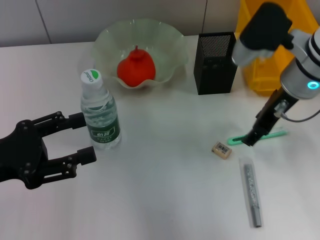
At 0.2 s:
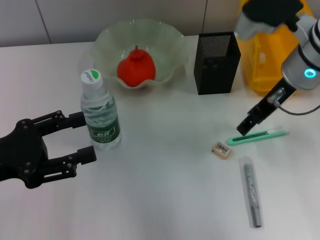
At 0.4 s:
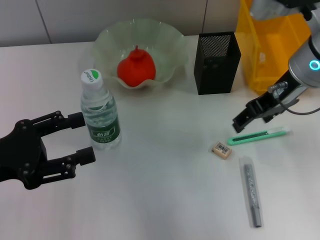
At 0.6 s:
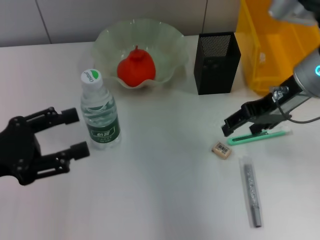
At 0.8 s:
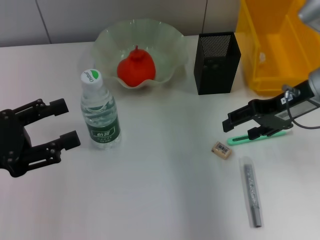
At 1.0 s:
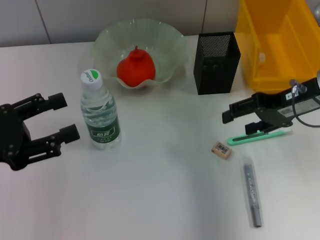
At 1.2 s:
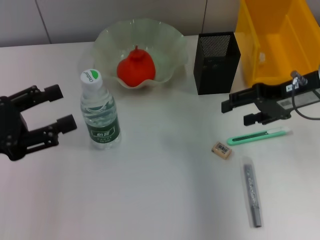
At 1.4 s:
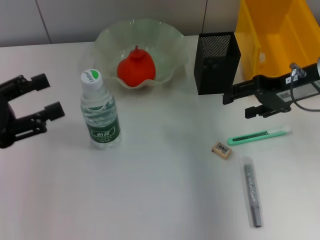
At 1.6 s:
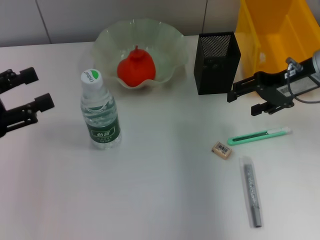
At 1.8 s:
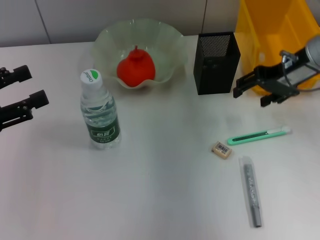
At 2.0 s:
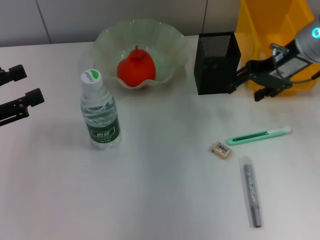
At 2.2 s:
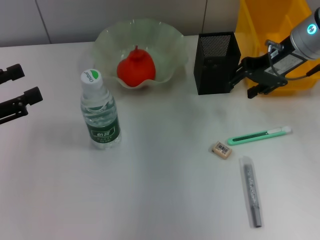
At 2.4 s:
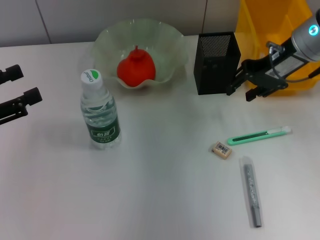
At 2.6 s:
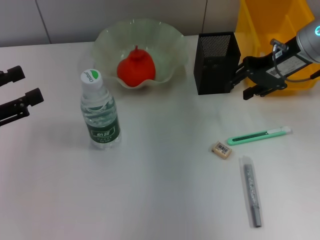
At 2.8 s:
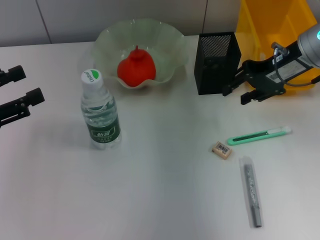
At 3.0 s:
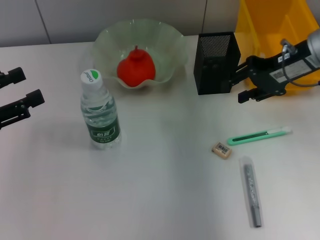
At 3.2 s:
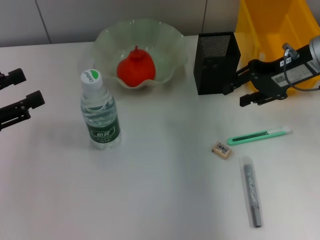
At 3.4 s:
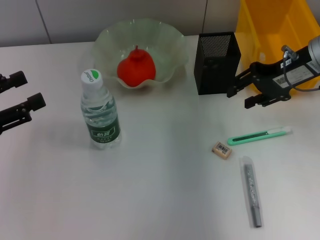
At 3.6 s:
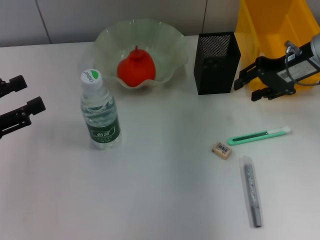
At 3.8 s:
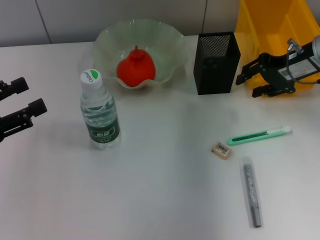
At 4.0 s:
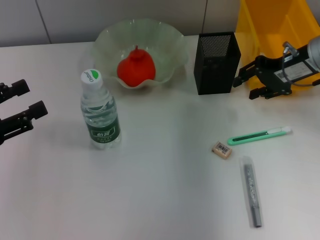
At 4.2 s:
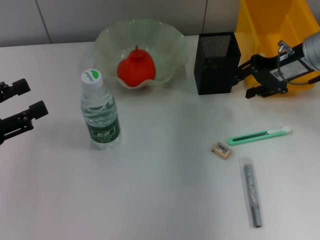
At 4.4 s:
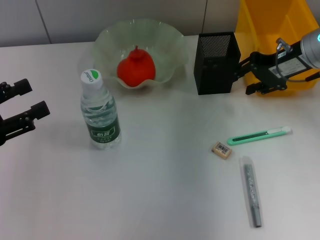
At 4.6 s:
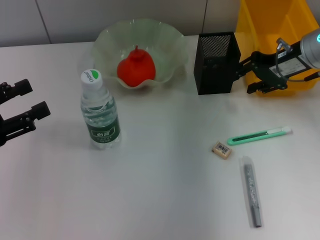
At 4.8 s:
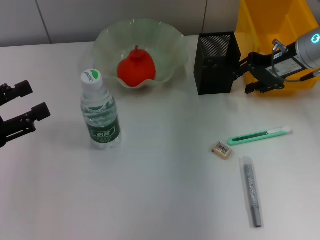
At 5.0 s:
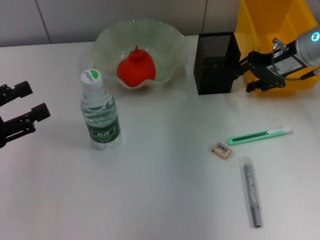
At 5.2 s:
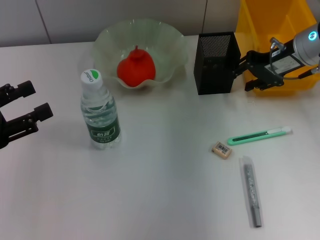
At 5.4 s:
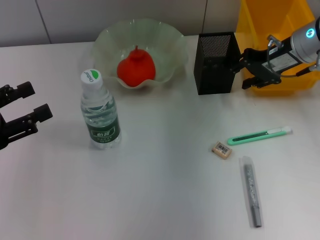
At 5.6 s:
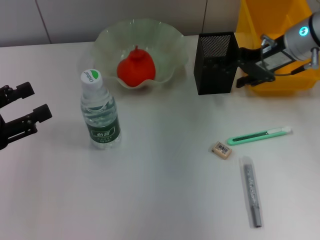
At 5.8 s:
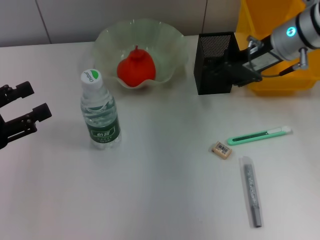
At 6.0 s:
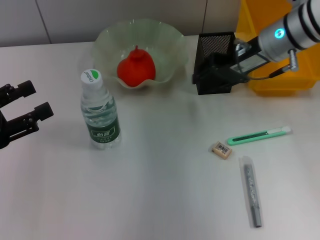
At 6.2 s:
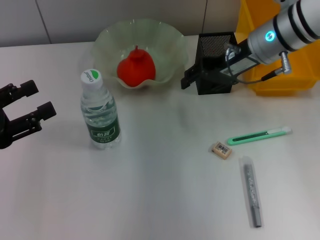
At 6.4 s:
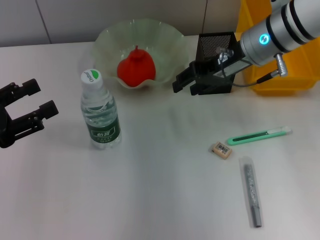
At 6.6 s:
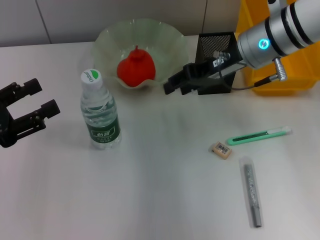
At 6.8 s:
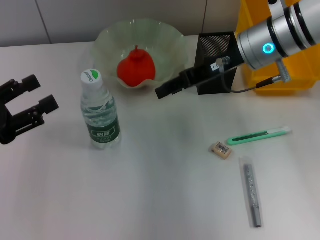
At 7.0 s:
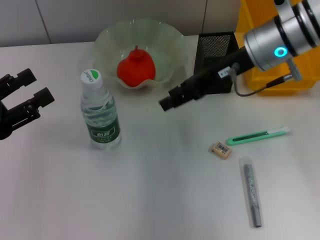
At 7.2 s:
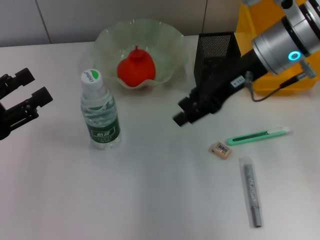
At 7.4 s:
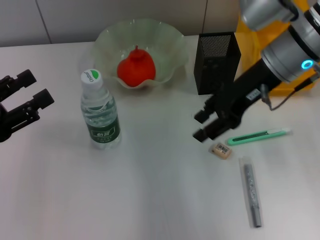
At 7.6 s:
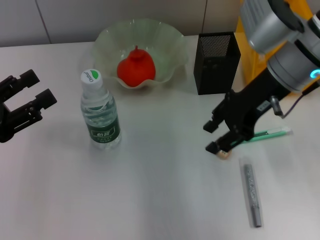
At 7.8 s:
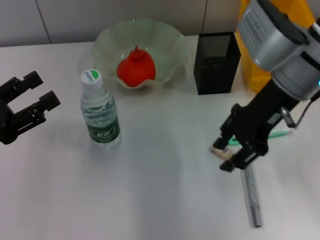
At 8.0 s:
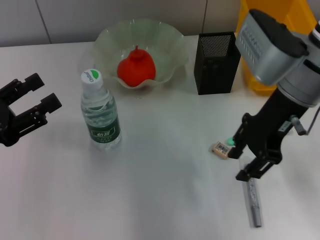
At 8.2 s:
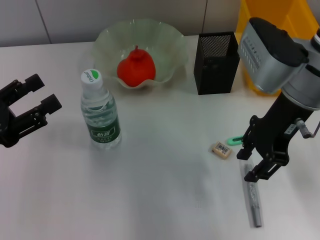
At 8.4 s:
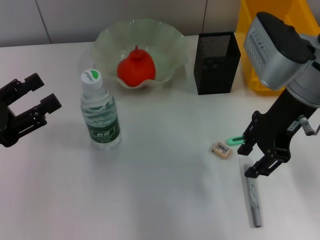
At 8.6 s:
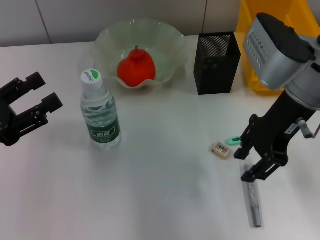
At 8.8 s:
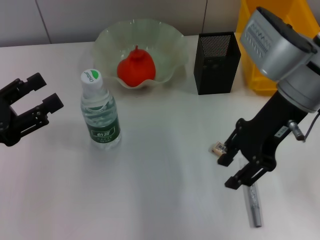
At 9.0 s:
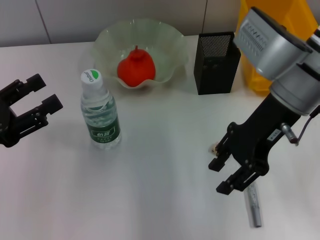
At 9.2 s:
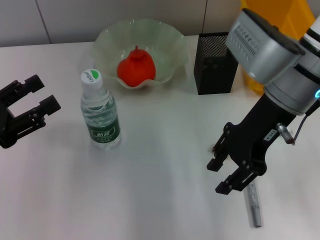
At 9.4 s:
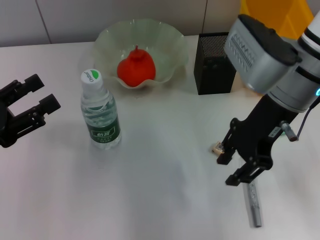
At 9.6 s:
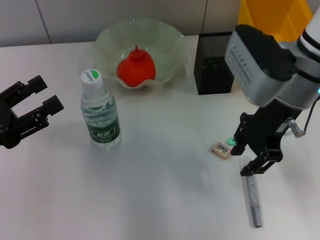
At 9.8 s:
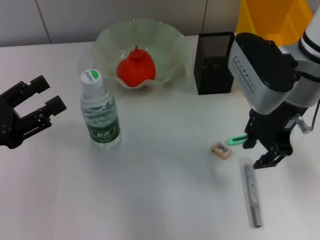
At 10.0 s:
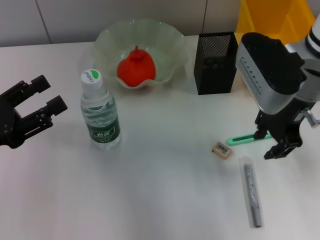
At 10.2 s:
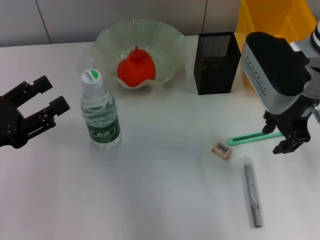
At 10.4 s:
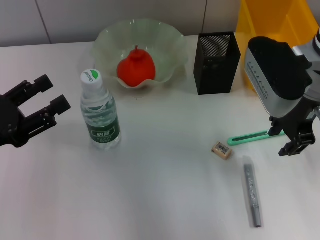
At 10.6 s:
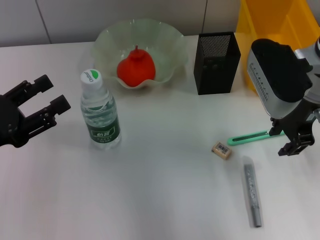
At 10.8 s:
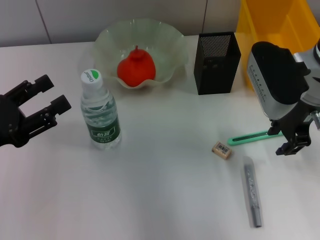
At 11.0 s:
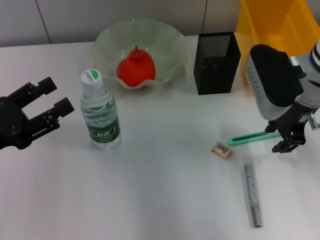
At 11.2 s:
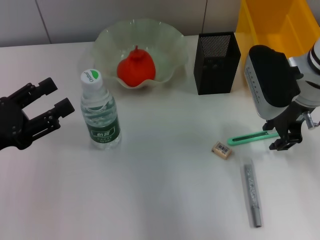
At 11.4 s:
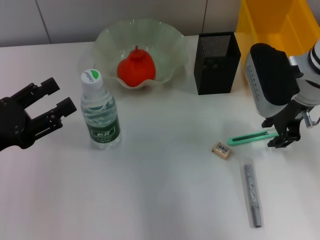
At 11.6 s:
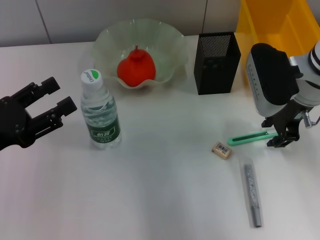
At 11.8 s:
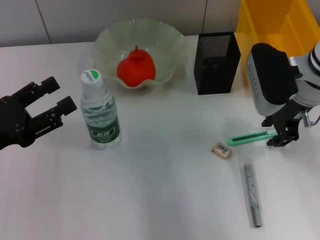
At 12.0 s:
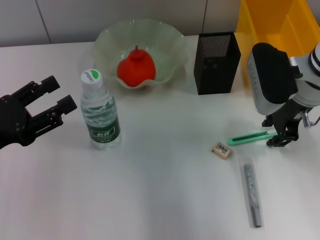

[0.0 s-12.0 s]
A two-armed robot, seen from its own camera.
0.0 to 1.6 s: The right gripper shifts about 5 cm to the right.
1.6 to 3.0 s: The right gripper closes up.
3.0 to 4.4 s: The grippers make only small movements.
4.4 to 6.0 s: The right gripper shifts approximately 5 cm to the left.
6.0 to 7.6 s: The right gripper heads backward, covering some 5 cm.
7.6 to 9.0 s: The grippers stay close to where they were, moving slightly.
10.4 to 12.0 s: The right gripper changes place by some 5 cm.

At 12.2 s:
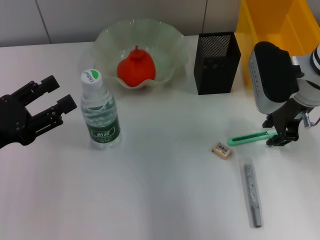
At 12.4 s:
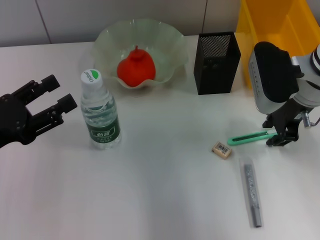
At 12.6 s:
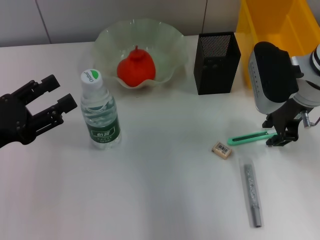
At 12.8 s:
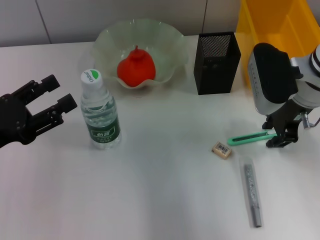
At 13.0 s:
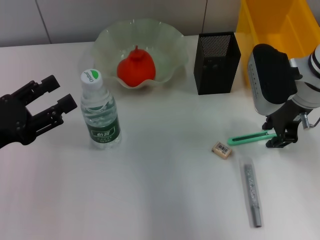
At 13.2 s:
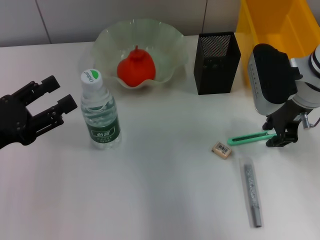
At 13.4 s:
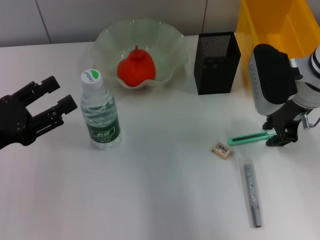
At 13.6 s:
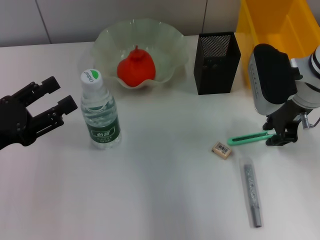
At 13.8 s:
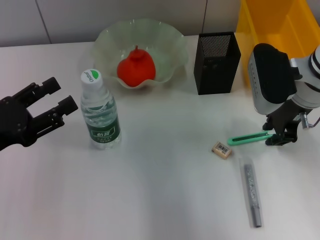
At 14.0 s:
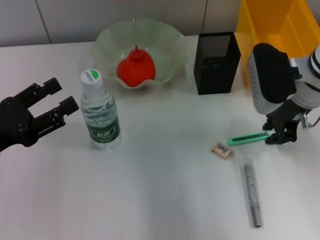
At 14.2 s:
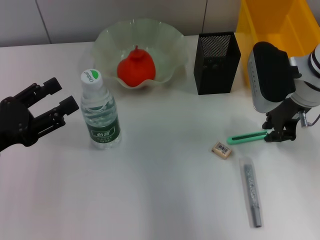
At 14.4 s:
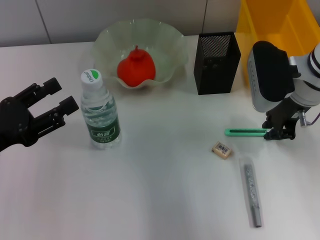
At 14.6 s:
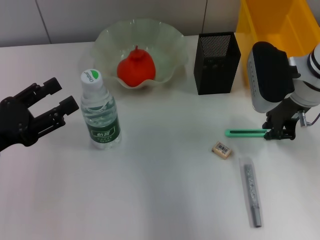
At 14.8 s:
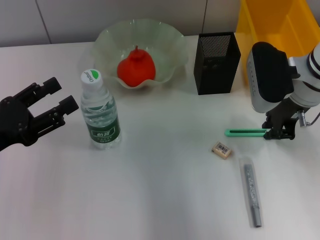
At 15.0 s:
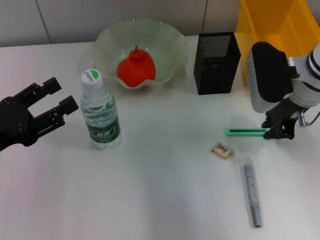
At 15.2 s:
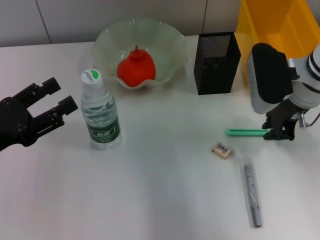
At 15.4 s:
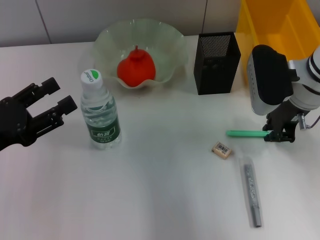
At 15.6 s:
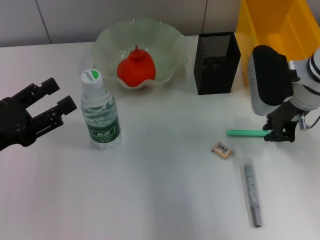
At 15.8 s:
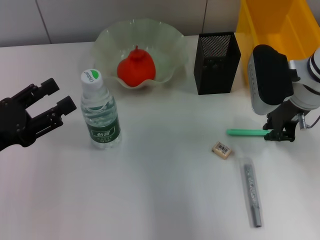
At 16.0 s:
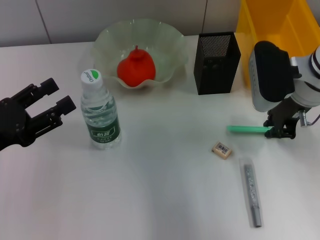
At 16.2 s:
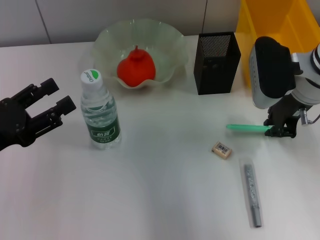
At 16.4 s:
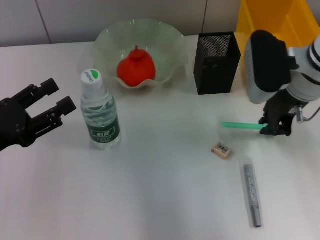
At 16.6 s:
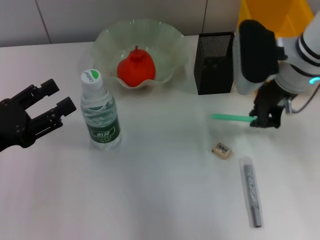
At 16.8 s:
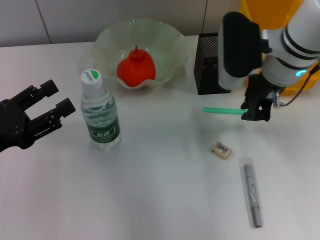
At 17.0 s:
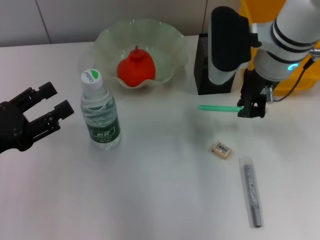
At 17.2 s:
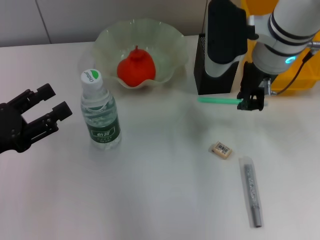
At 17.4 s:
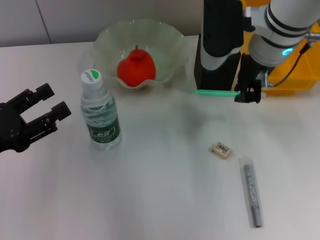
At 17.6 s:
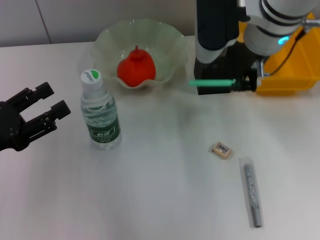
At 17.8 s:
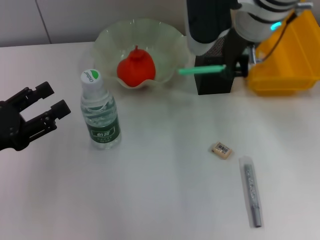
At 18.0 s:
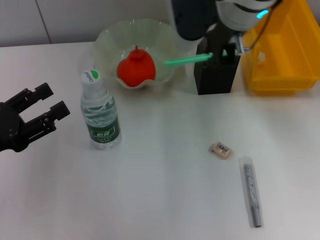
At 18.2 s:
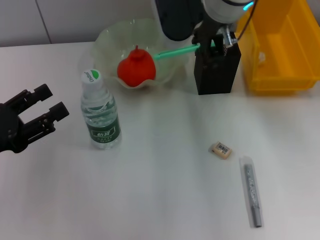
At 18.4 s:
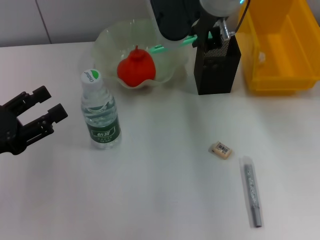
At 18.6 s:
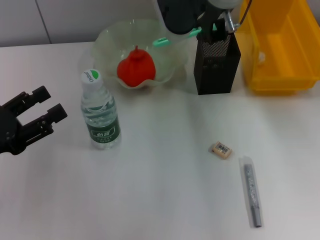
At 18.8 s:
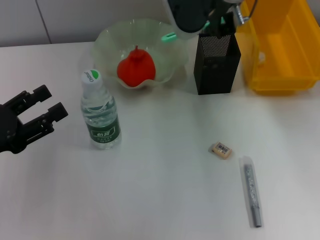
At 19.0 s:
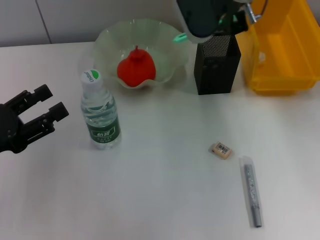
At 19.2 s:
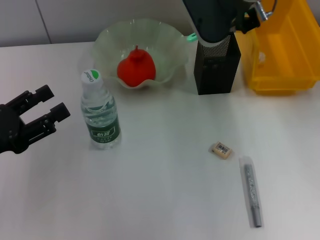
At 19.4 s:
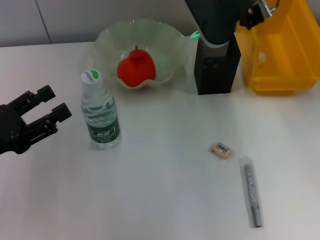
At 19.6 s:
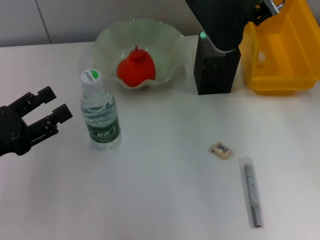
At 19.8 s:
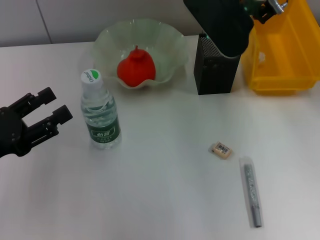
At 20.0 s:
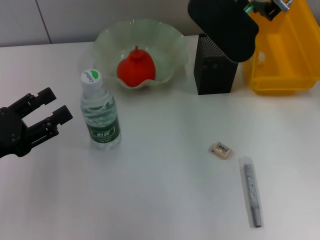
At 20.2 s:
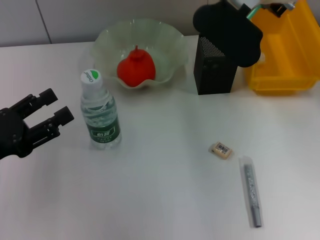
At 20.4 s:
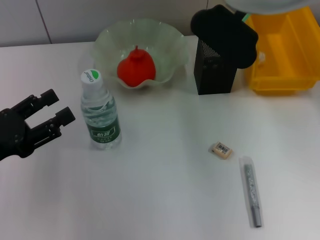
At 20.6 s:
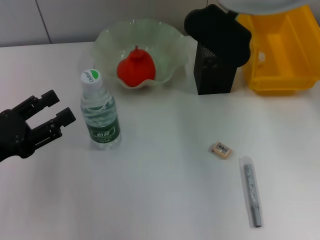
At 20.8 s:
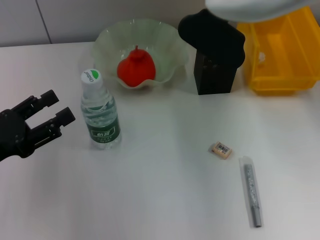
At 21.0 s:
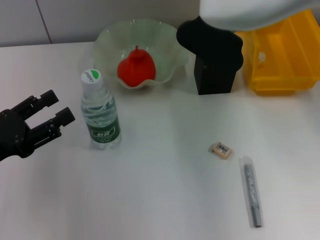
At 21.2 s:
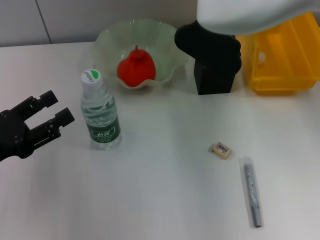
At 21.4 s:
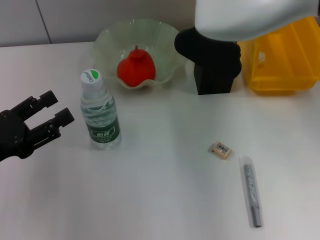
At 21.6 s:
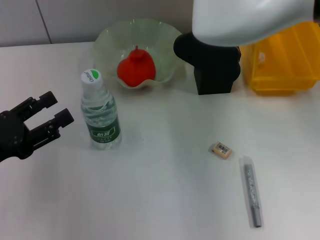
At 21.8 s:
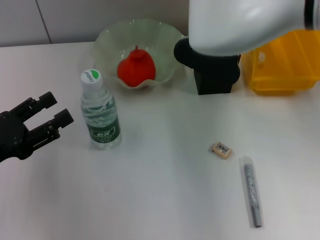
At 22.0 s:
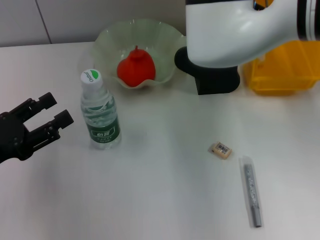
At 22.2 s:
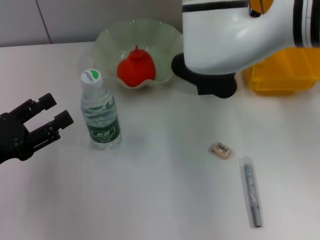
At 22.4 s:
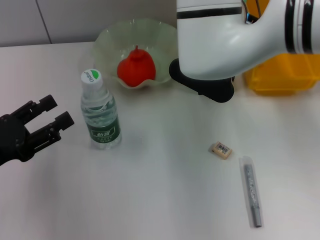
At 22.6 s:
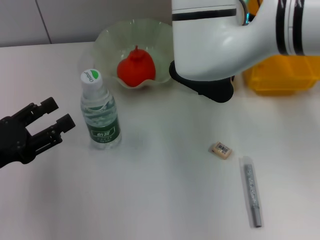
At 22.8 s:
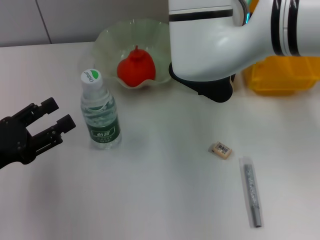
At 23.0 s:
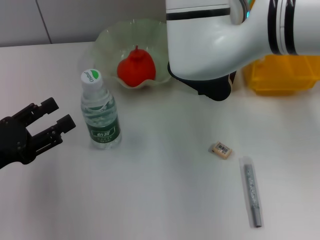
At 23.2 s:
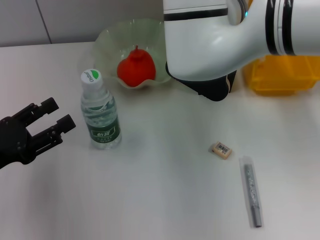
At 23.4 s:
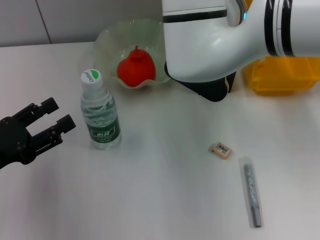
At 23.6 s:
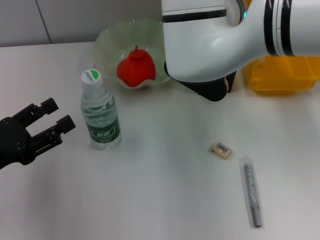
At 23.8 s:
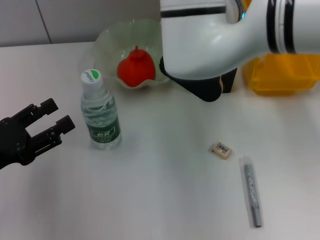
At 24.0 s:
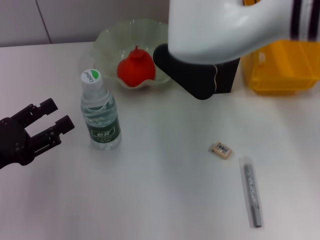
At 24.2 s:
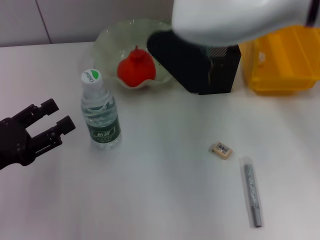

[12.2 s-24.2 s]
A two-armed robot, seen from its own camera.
Step, 12.2 to 14.8 s: Grab the blue utility knife with the right hand.
12.2 to 15.2 s: Neither gripper changes place.
15.2 to 16.6 s: The grippers move only a little.
16.6 to 18.2 s: The right gripper heads to the left and upward, covering approximately 15 cm.
19.8 to 21.2 s: The right gripper ends up some 5 cm from where it was.
21.2 to 22.6 s: The grippers make only small movements.
